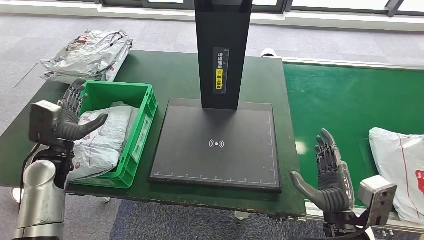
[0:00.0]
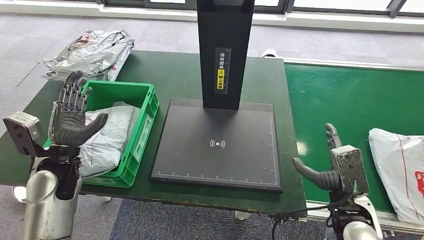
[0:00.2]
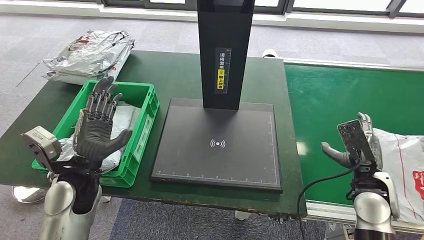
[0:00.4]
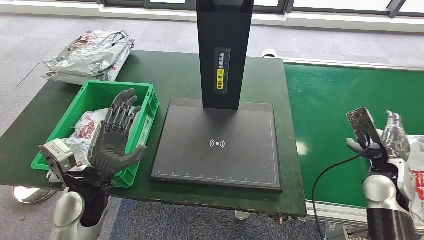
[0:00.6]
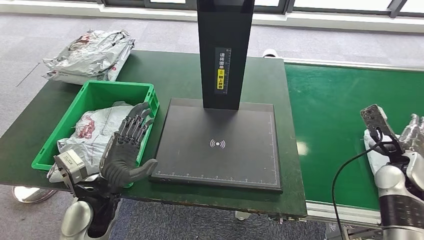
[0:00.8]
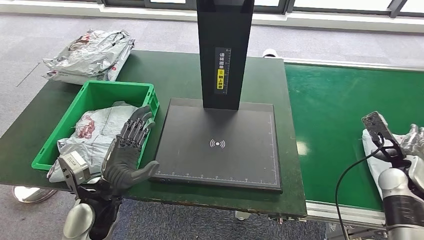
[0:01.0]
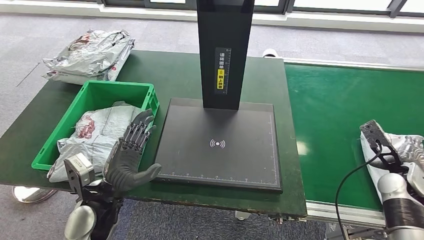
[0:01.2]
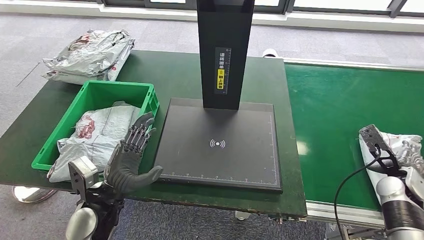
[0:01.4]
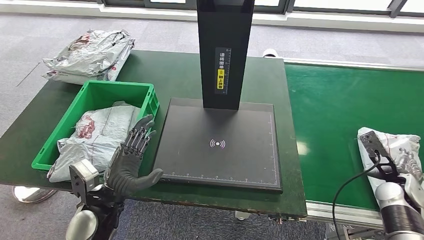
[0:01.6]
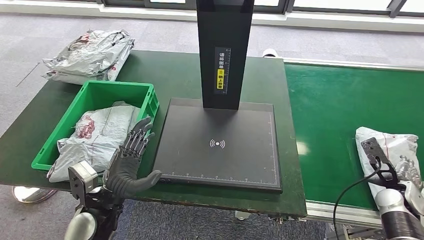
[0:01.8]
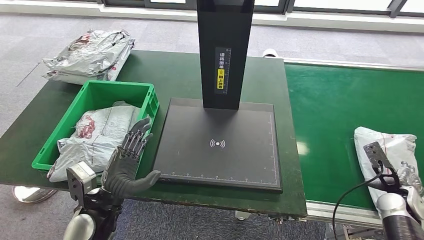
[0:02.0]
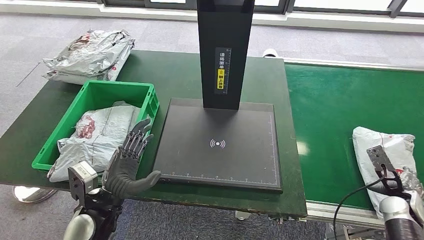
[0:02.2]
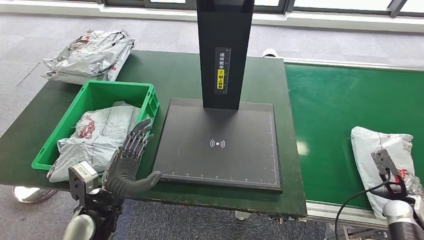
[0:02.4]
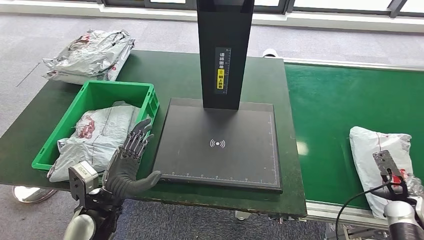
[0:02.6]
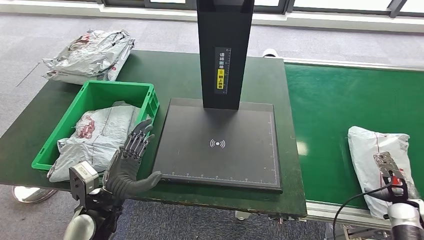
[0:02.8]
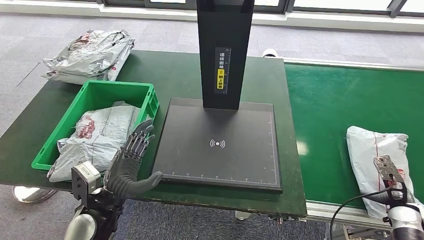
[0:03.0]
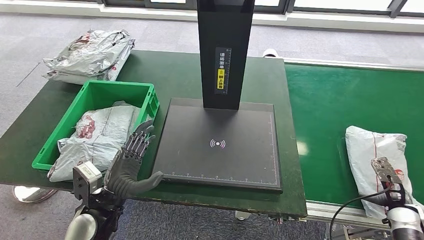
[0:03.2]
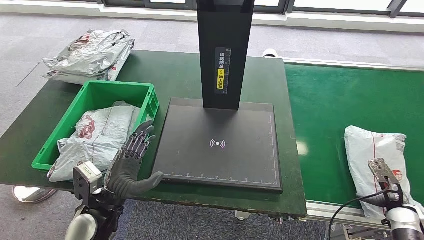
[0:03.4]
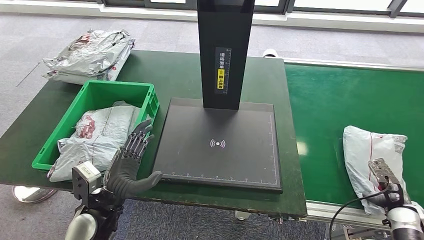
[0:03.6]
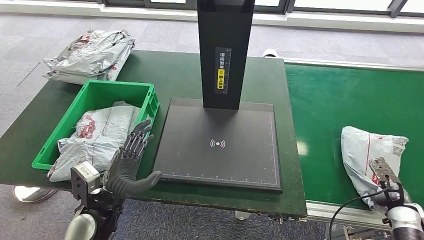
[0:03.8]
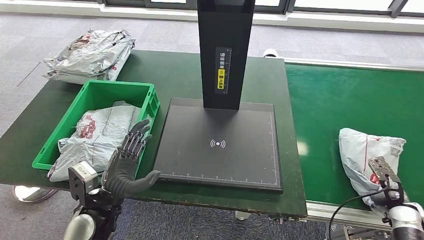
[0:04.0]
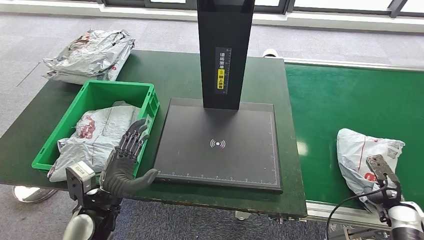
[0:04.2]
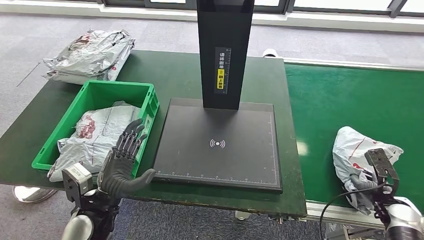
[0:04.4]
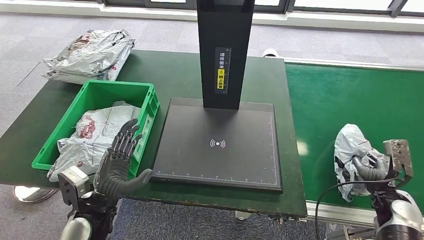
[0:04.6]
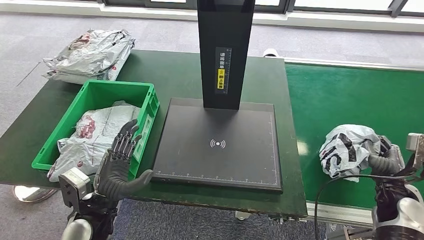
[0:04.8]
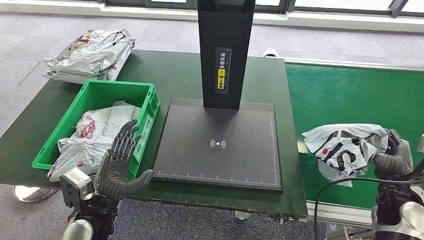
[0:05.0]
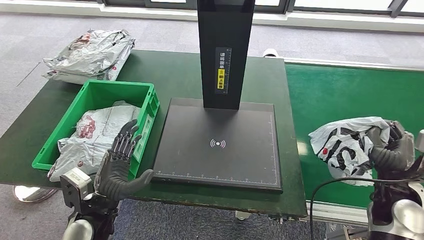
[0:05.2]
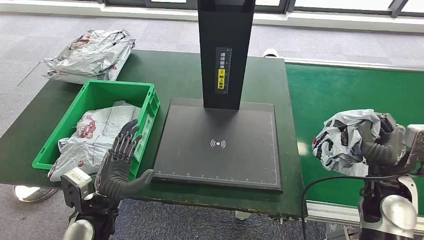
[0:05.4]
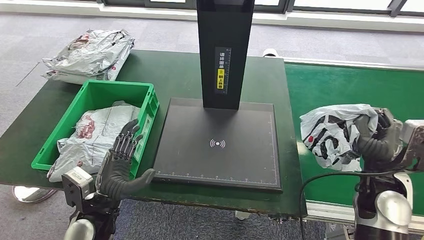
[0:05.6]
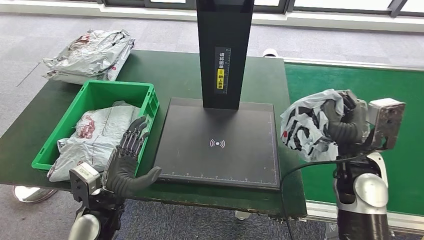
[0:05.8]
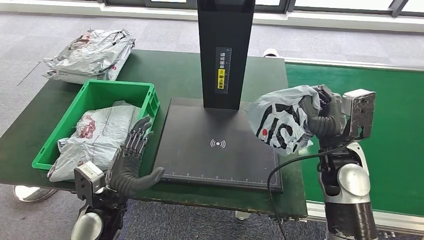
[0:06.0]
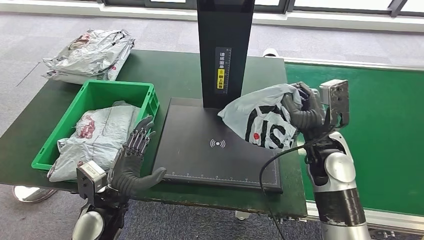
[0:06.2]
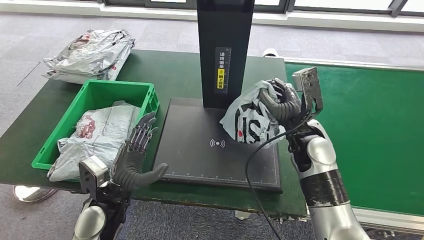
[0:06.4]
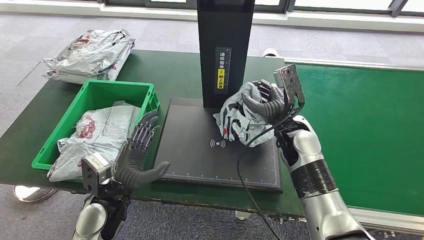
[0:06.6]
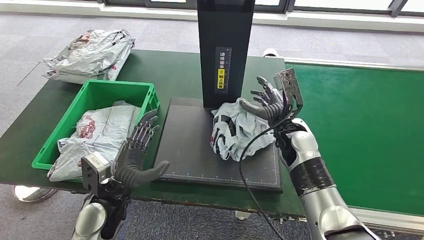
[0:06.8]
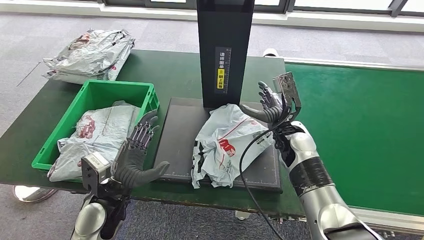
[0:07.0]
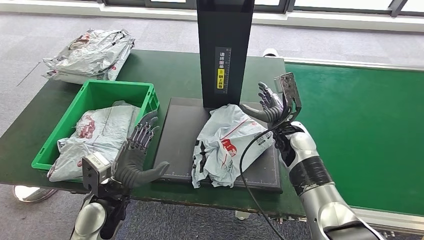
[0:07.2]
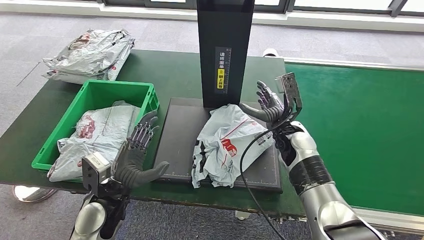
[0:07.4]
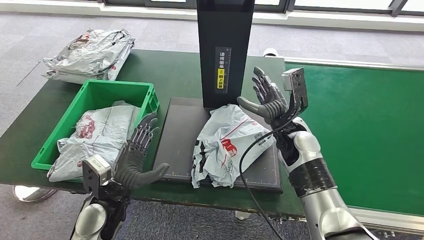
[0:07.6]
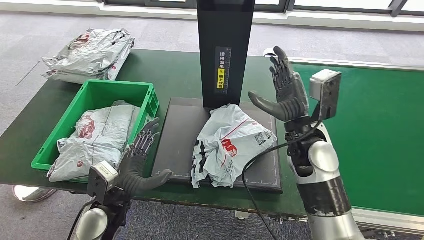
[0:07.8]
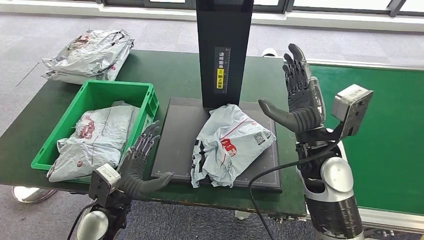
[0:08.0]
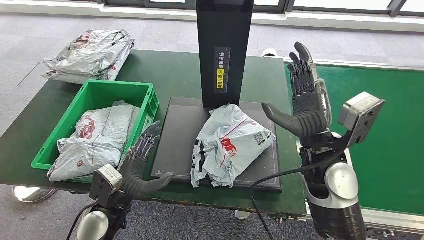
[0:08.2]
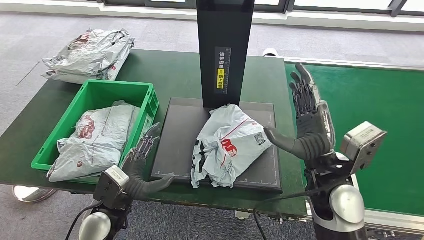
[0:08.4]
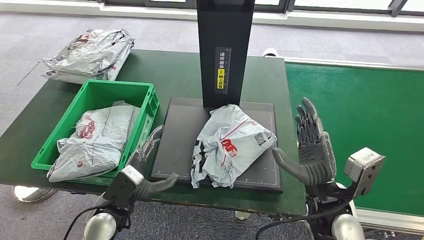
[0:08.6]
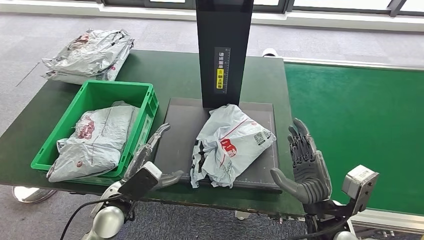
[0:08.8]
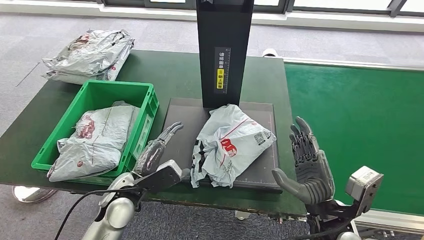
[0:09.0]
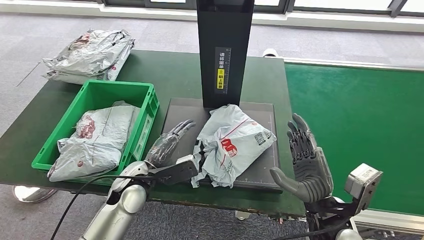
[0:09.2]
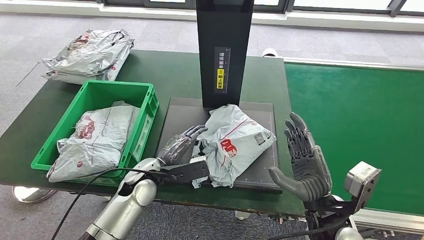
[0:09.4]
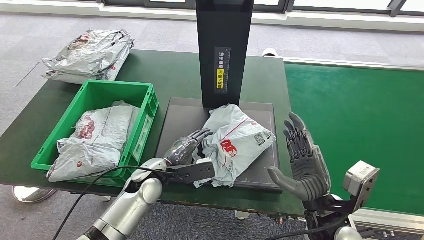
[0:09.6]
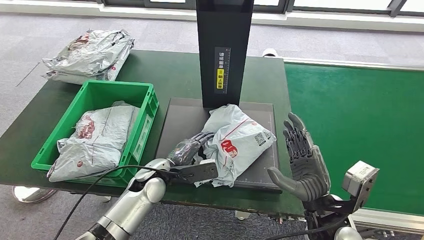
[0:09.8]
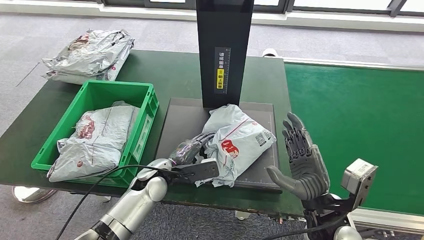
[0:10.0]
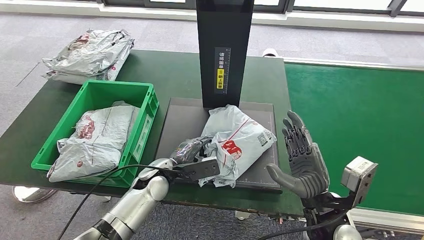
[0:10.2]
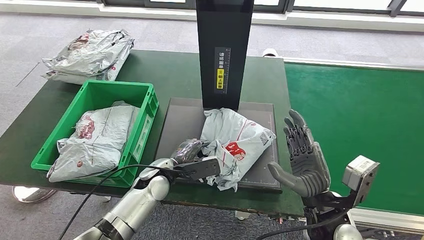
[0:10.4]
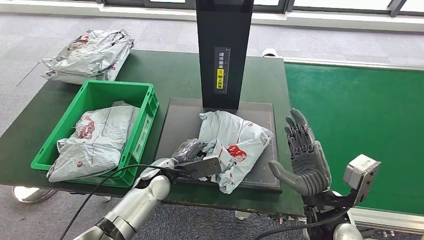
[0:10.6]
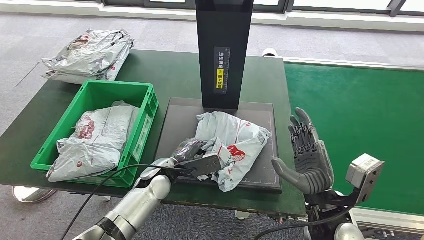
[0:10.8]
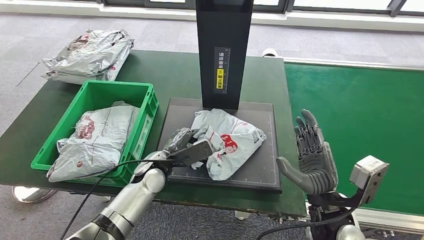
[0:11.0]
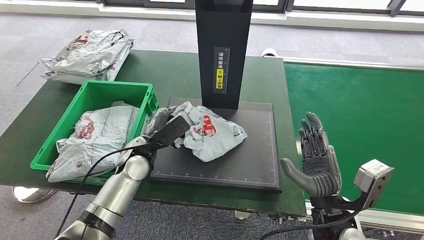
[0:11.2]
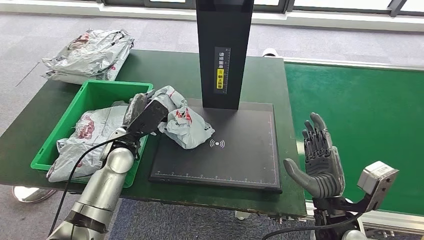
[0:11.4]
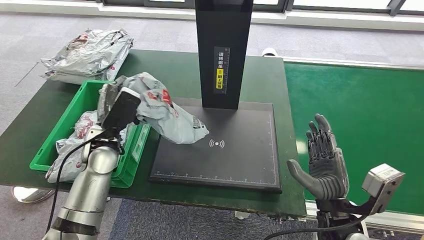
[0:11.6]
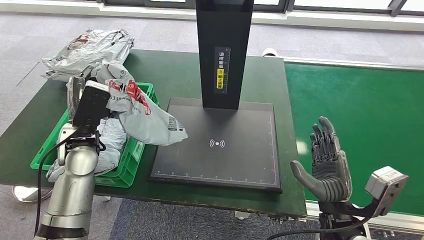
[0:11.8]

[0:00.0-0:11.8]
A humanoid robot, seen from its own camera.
Step, 0:01.0 to 0:05.0: Pick up the parcel from the conveyor belt.
Step, 0:05.2 to 0:07.4: Place the parcel onto the inbound machine.
0:01.4 to 0:03.0: The right hand heads backward and downward, covering roughly 10 cm.
0:04.4 to 0:06.0: The right hand shifts some 25 cm to the left and upward.
0:06.0 to 0:07.4: The right hand travels forward and to the left by approximately 10 cm.
0:07.4 to 0:08.8: The right hand travels backward by roughly 20 cm.
0:08.8 to 0:10.4: The left hand heads forward and to the right, covering approximately 10 cm.

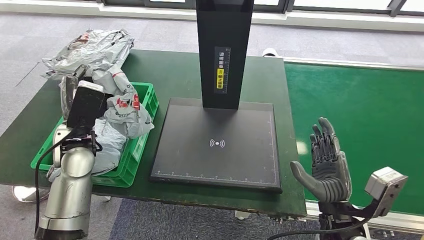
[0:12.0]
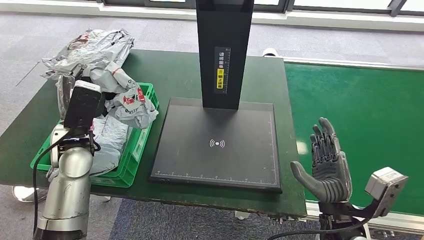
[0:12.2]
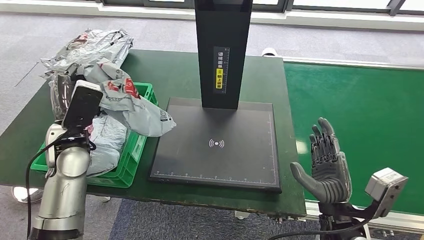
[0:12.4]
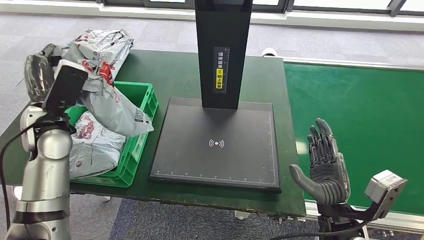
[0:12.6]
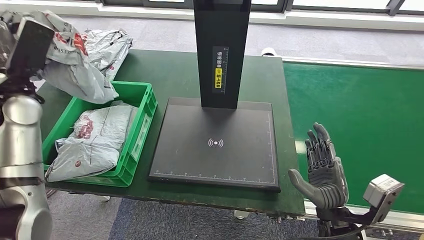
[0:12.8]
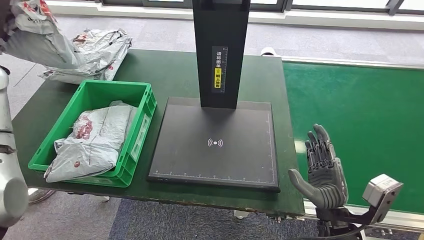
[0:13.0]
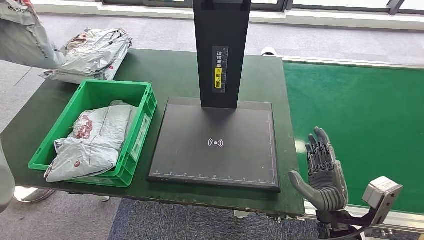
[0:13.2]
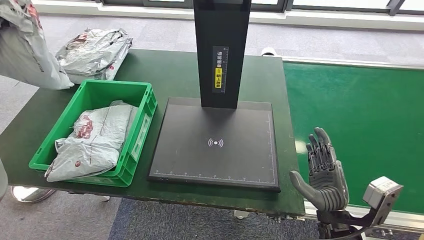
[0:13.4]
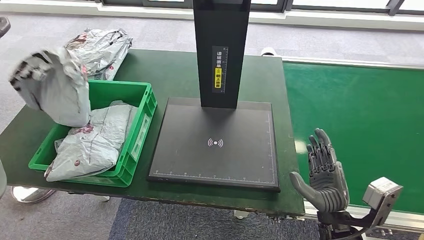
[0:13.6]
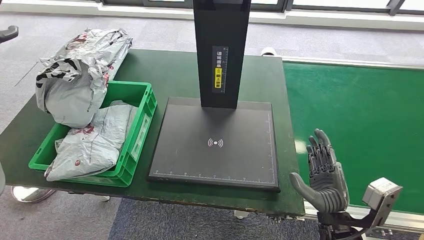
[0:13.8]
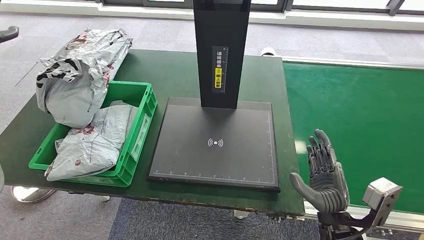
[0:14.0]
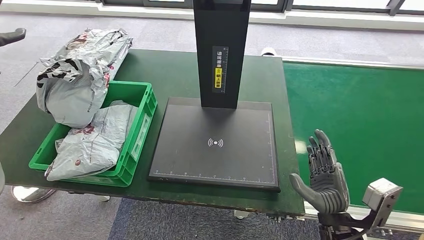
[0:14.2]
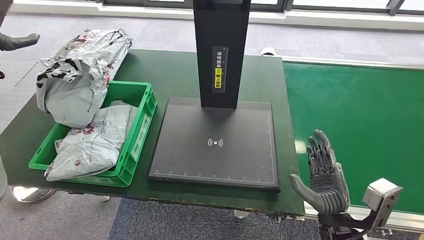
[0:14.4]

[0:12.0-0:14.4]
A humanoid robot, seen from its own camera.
Step, 0:12.0 to 0:14.2: Place the parcel into the delivery box.
